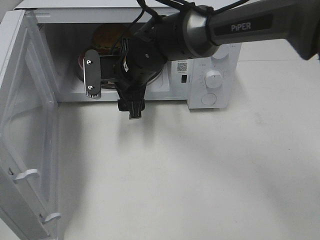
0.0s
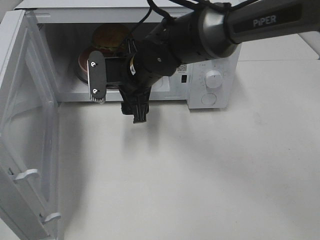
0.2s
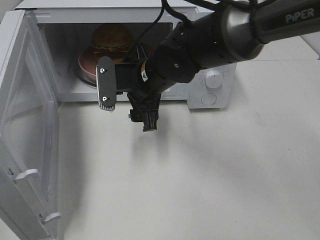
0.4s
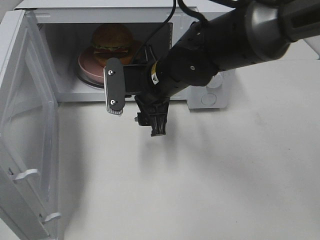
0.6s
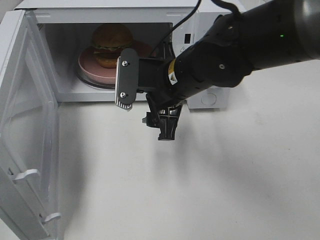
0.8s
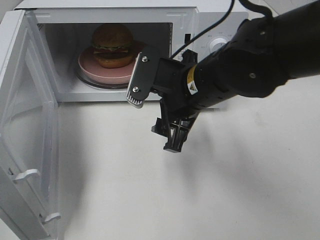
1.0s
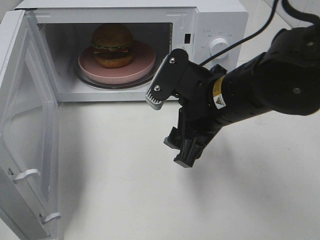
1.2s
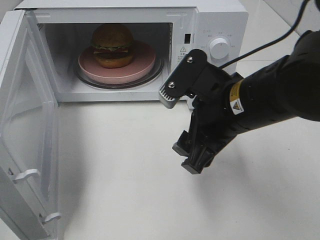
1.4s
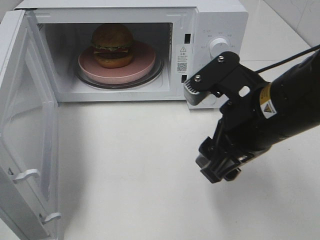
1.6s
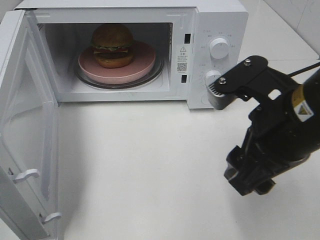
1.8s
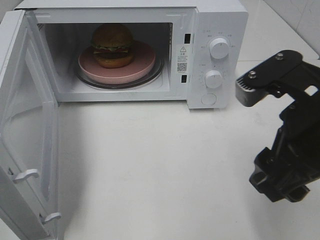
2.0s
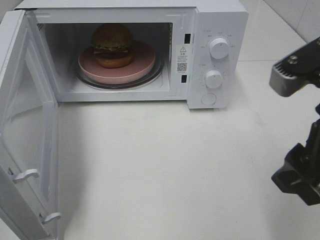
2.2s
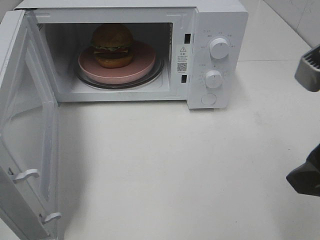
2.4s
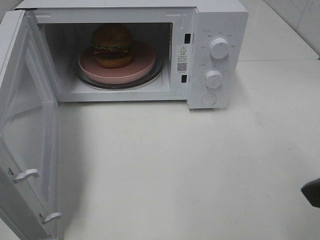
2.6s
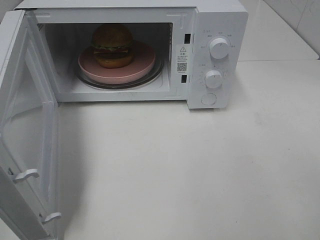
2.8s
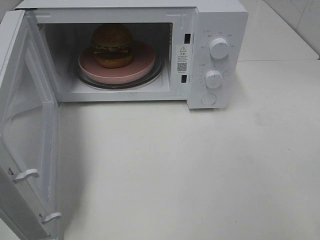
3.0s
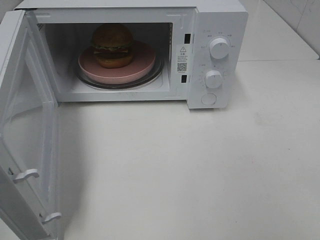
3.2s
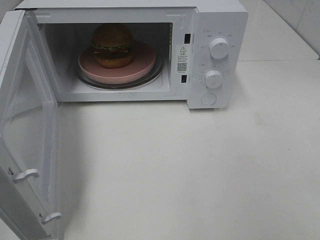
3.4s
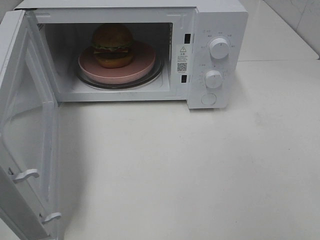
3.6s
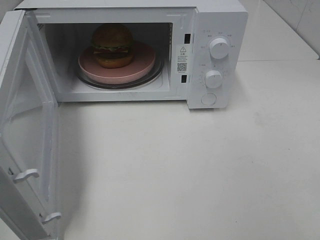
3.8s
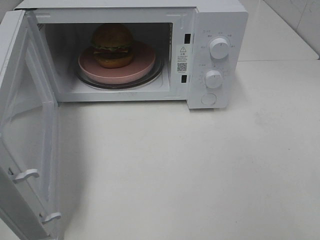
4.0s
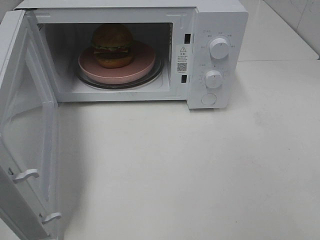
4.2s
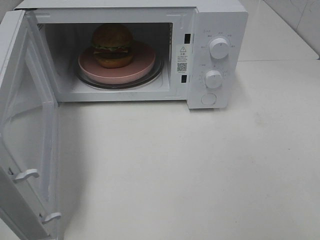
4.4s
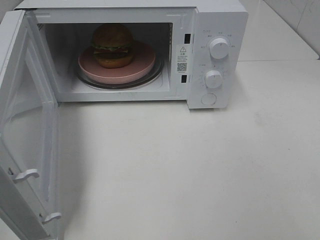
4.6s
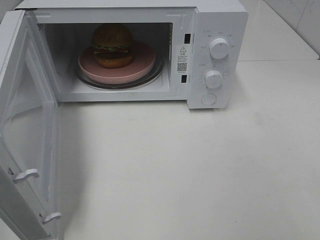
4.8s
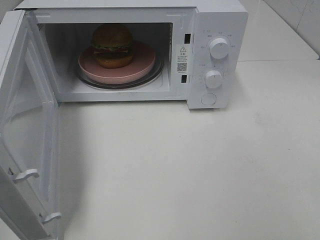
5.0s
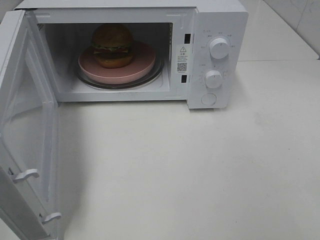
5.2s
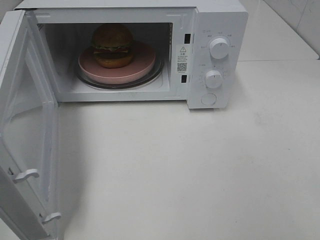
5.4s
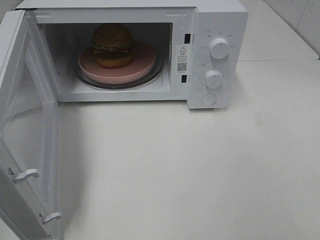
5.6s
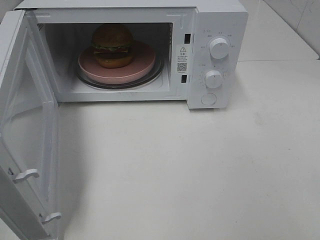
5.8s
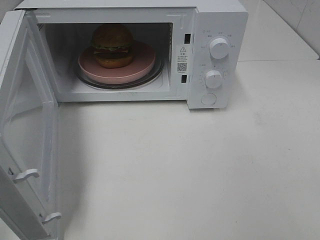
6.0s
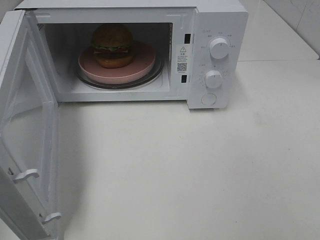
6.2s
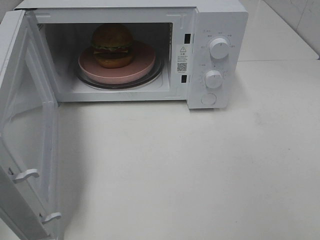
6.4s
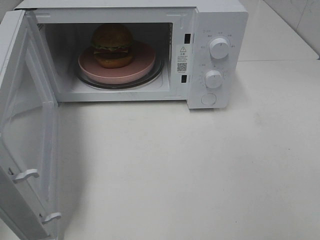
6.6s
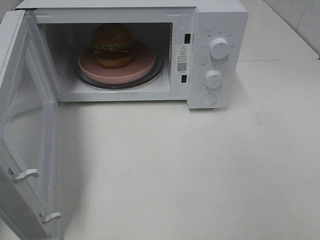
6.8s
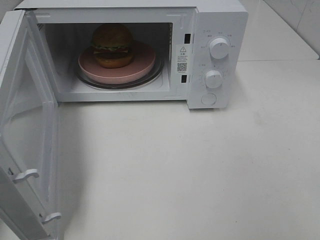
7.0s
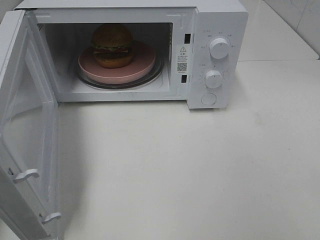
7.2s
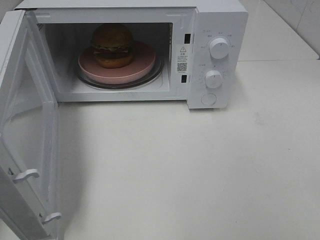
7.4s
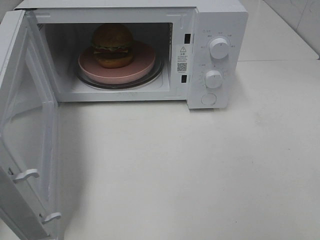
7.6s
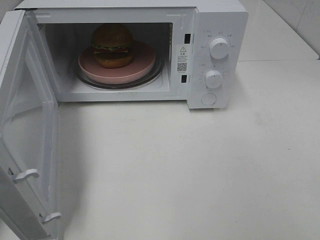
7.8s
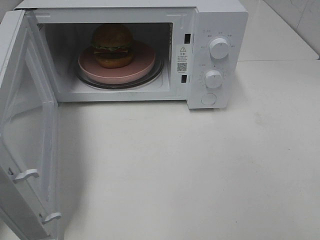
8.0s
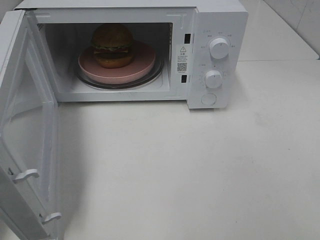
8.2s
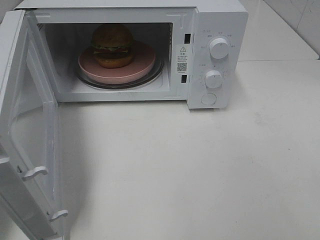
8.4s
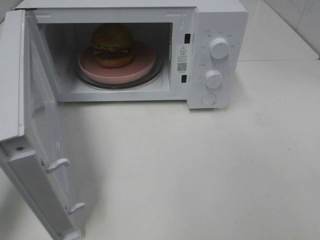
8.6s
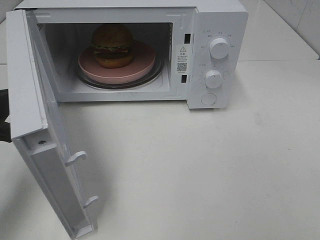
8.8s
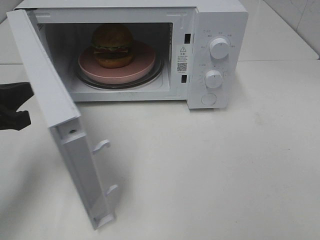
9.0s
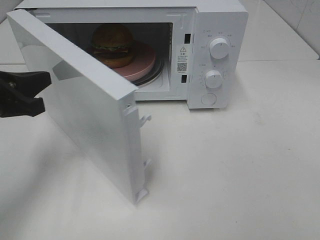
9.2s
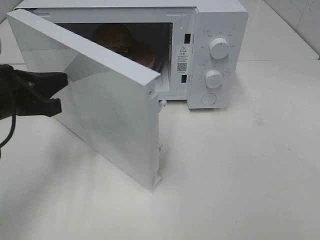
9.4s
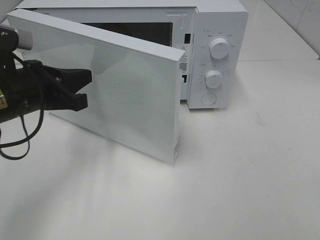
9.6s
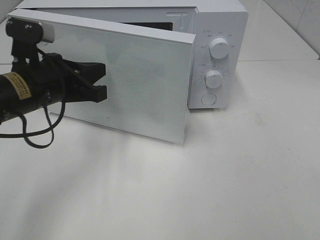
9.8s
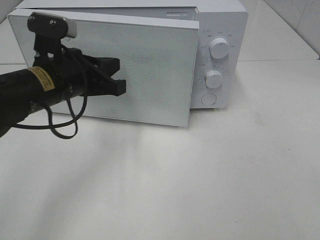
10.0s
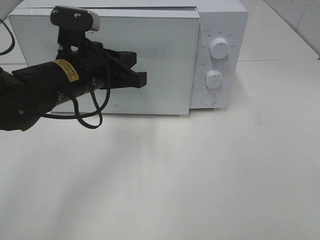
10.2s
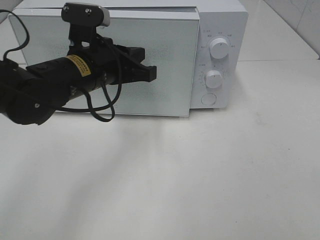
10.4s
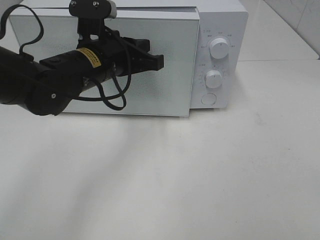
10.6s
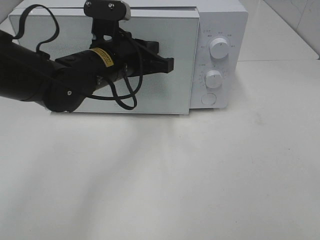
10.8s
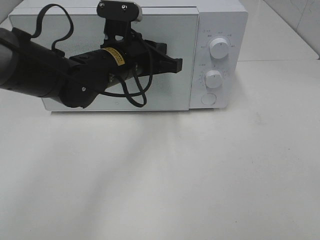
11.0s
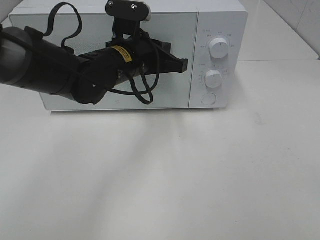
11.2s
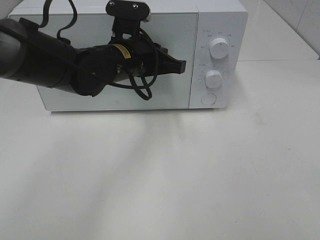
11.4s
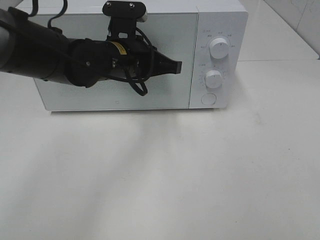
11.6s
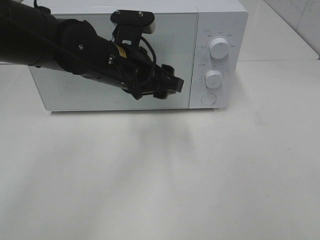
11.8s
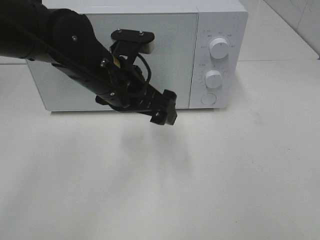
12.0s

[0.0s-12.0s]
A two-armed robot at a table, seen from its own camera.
Task of the whole recording: Heat the burger.
Step, 0.0s to 11.6s: Left hand: close the microwave door.
0.0s to 1.6s: The right gripper moves backward and to the right, about 25 cm.
1.6s to 3.0s: The right gripper shifts roughly 20 cm to the right, backward and upward.
7.6s to 9.0s: The left gripper heads forward, to the right and downward, covering about 15 cm.
9.0s to 10.4s: The left gripper goes roughly 20 cm to the right and forward.
10.4s to 12.0s: The left gripper opens.

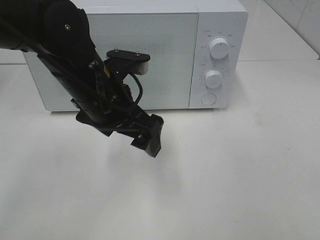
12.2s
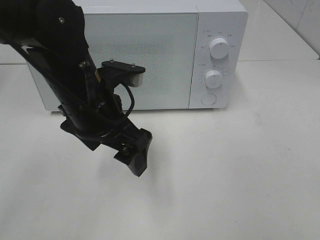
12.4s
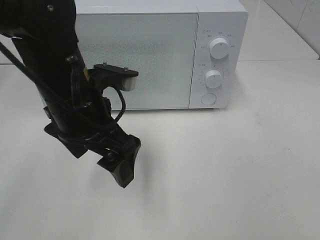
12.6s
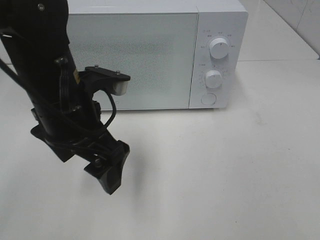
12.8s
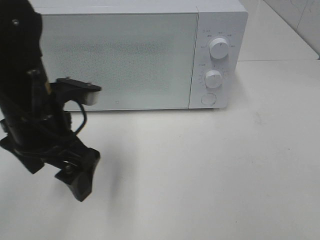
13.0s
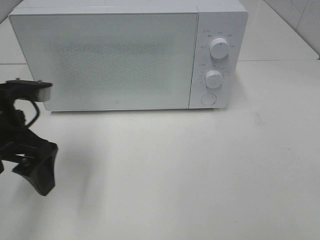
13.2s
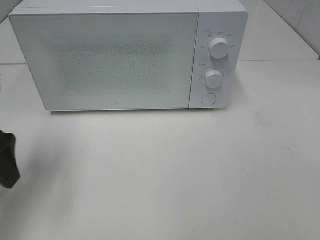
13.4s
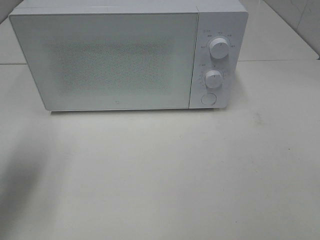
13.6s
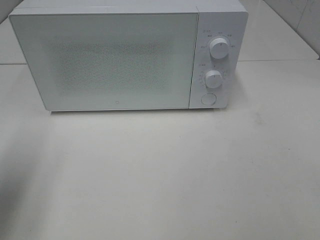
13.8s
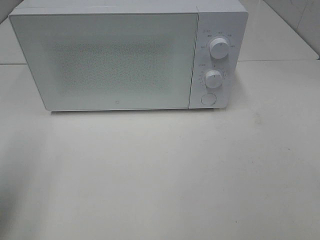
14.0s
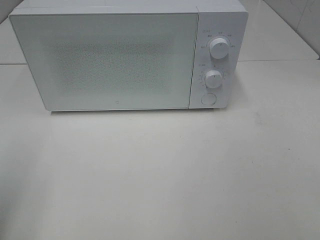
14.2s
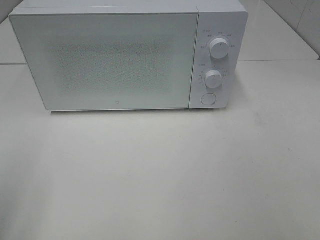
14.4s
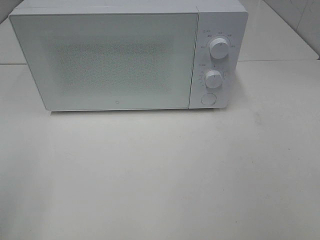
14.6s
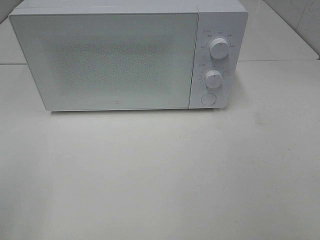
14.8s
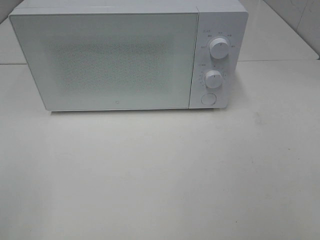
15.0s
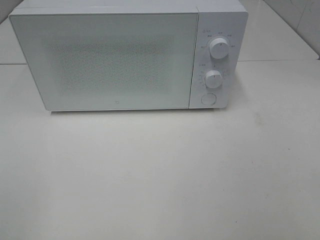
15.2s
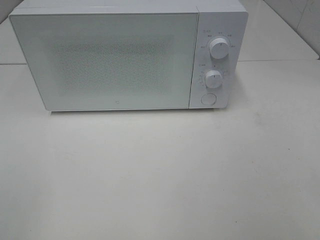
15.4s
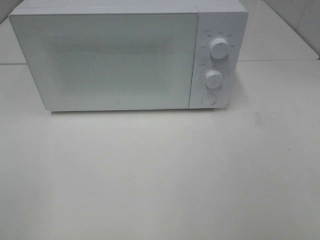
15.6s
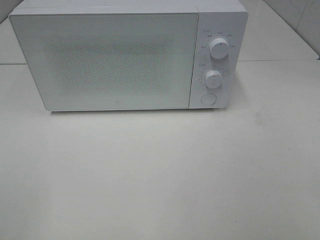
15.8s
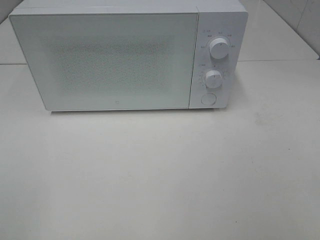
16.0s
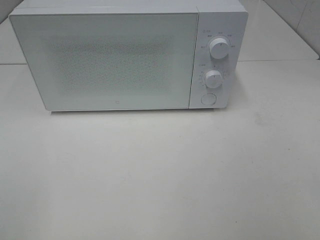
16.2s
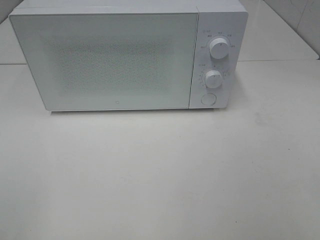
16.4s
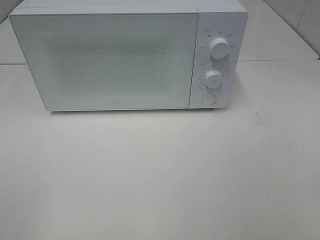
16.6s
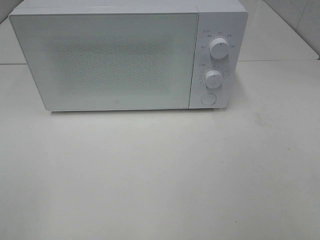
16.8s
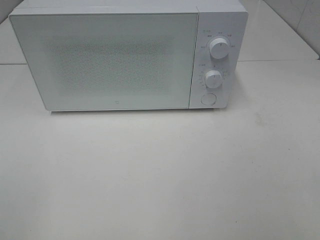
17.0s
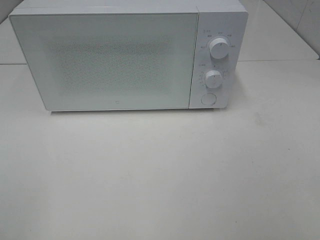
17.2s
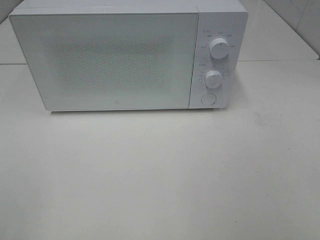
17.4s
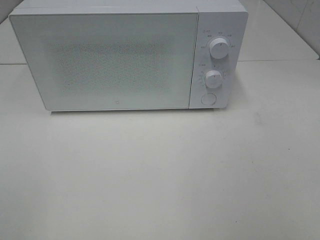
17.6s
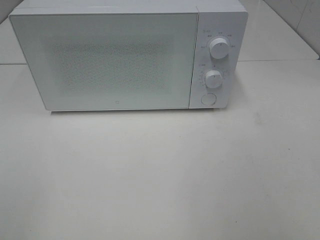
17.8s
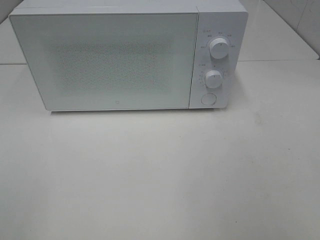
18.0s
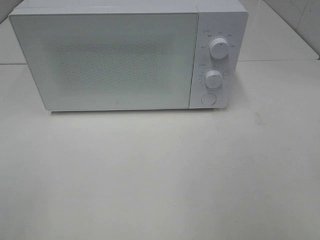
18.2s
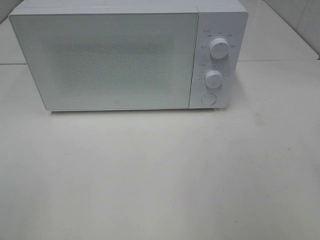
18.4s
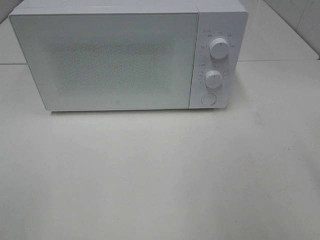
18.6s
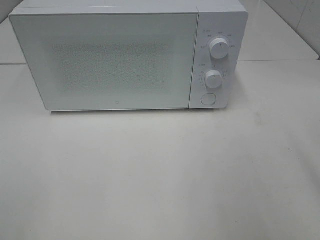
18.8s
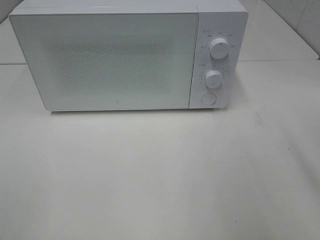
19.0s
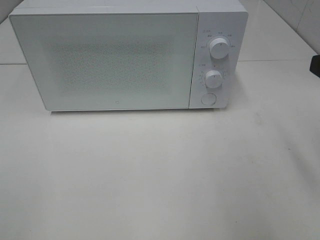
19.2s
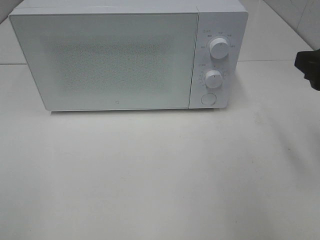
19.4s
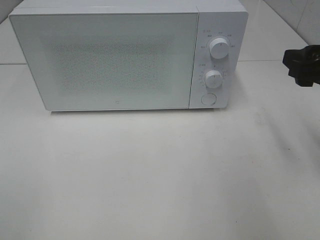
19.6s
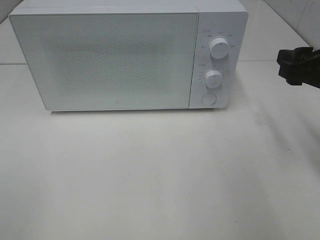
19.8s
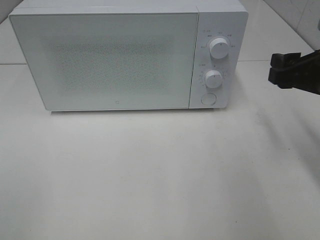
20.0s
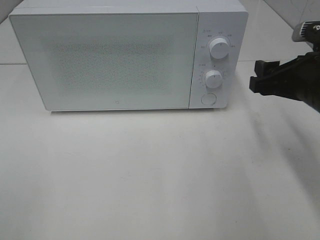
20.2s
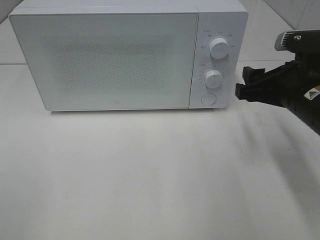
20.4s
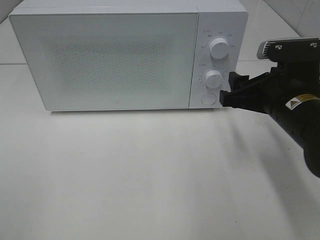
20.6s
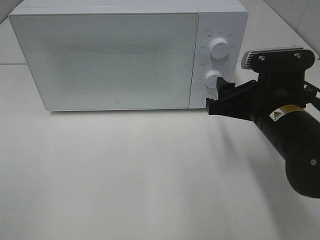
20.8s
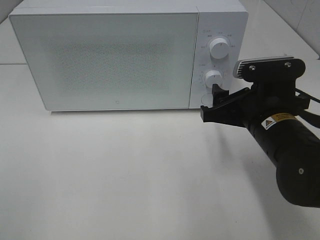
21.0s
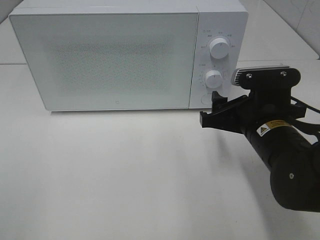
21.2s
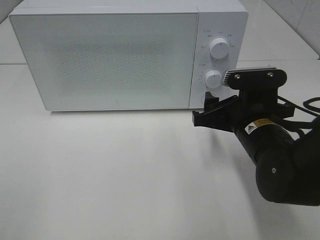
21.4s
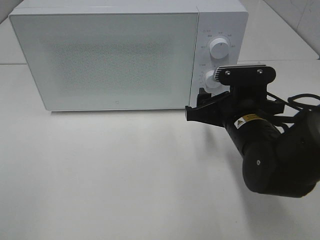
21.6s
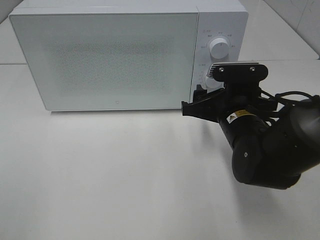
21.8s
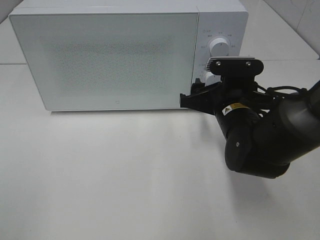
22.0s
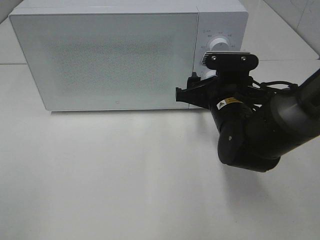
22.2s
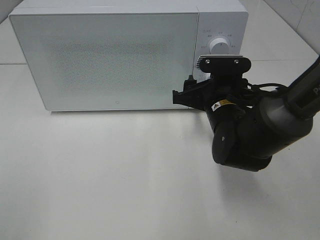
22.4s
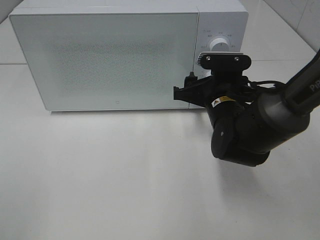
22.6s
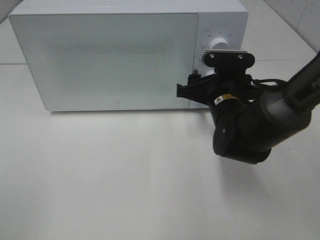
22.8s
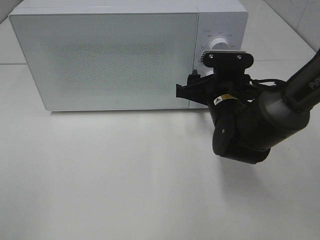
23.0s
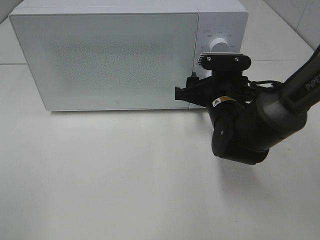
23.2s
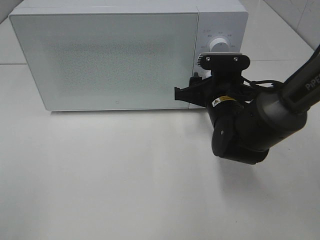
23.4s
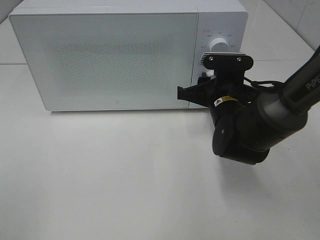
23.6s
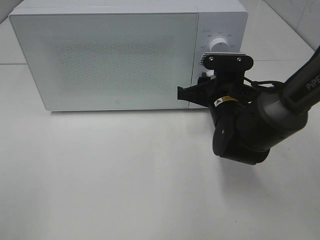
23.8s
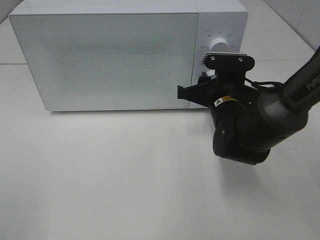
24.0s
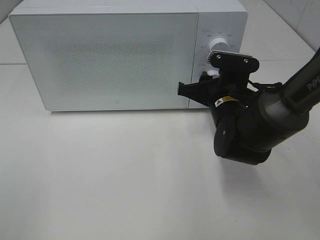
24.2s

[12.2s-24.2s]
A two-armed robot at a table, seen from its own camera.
Task of the whole recording: Heat the burger.
12.2s to 13.8s: The left gripper heads to the left and backward, covering about 25 cm.
13.8s to 15.2s: The left gripper shifts about 15 cm backward.
15.2s to 16.6s: Both grippers stay put.
18.2s to 19.8s: The right gripper travels forward and downward by roughly 20 cm.
19.8s to 21.2s: The right gripper heads to the left and downward, covering about 15 cm.
21.2s to 22.6s: The right gripper is displaced forward by roughly 10 cm.
22.6s to 24.2s: The right gripper closes its fingers.
